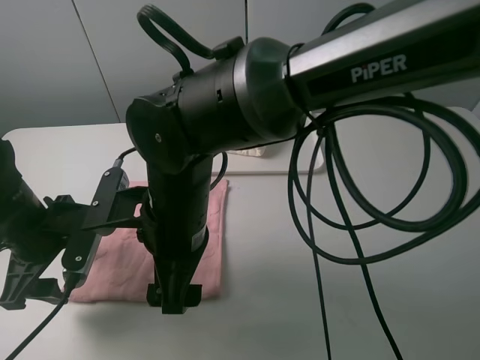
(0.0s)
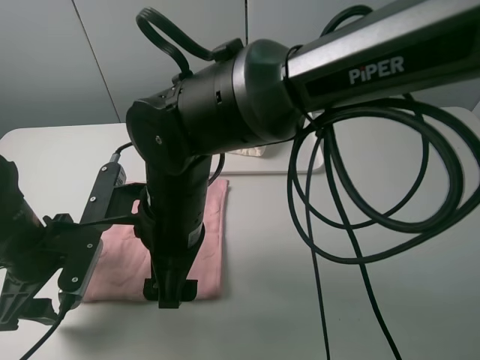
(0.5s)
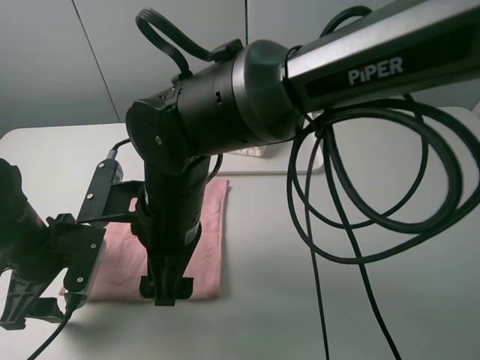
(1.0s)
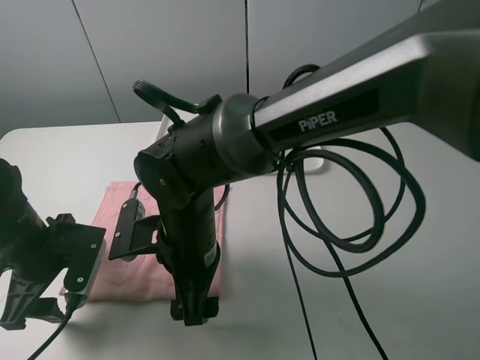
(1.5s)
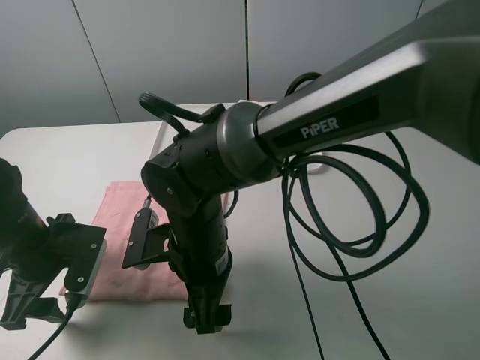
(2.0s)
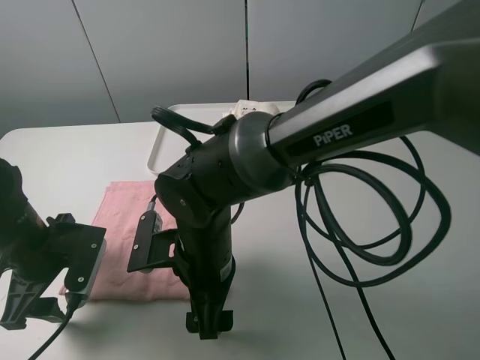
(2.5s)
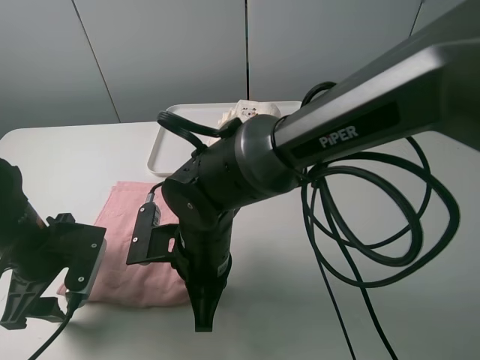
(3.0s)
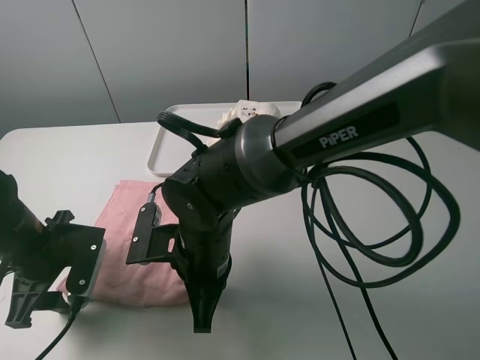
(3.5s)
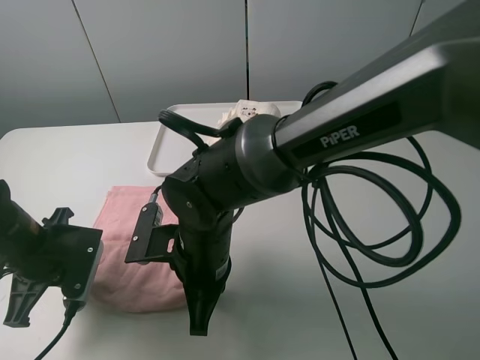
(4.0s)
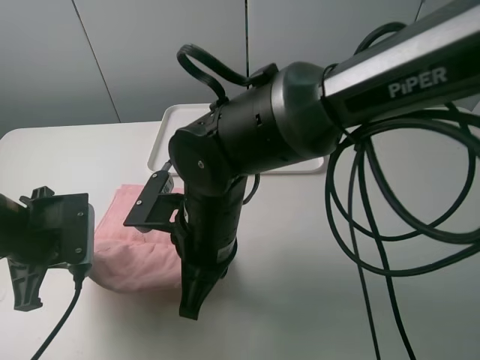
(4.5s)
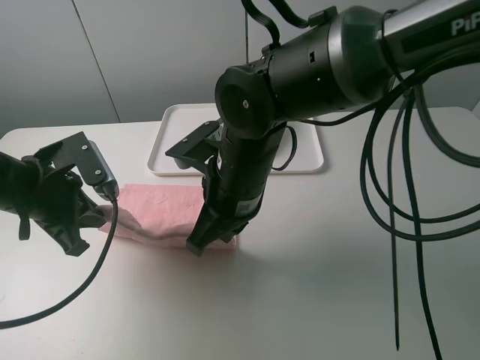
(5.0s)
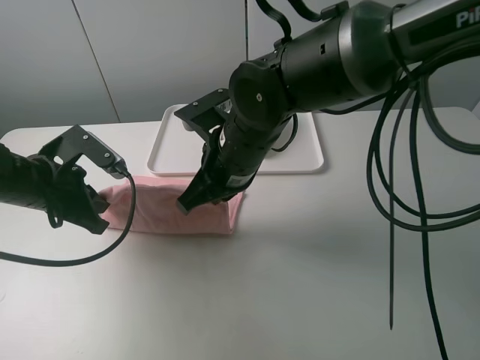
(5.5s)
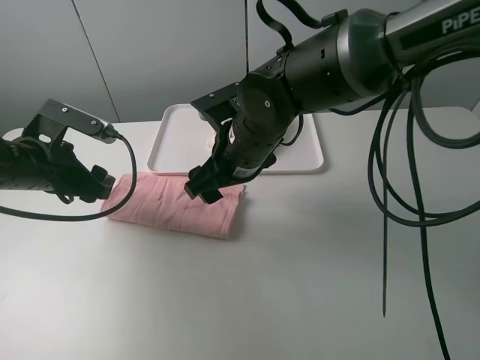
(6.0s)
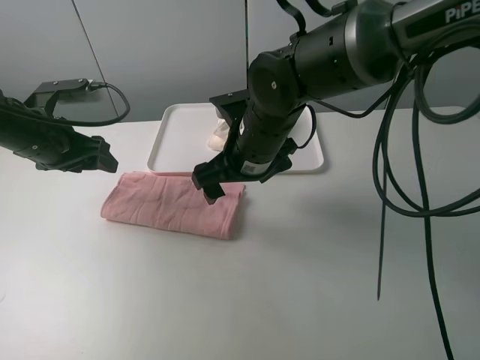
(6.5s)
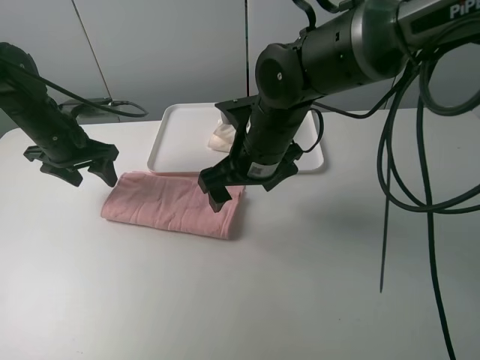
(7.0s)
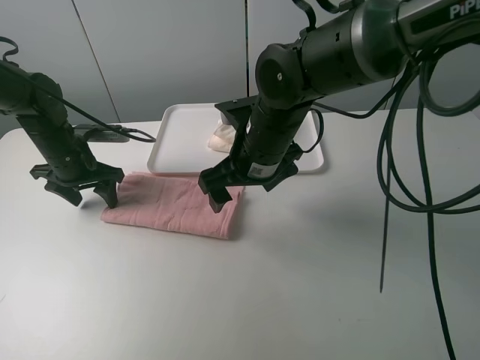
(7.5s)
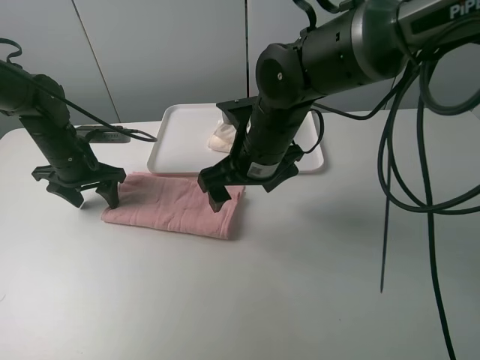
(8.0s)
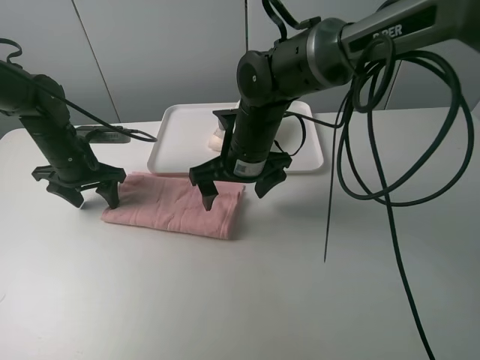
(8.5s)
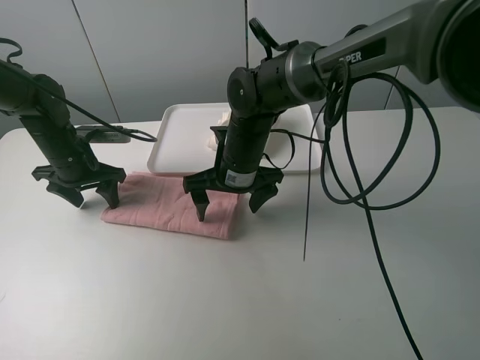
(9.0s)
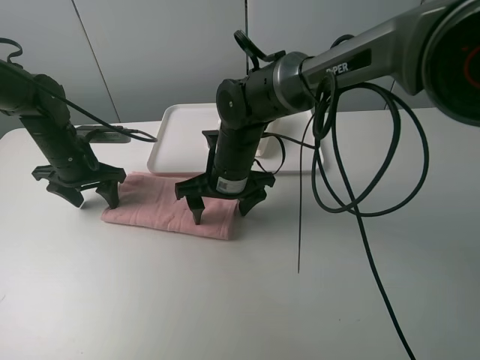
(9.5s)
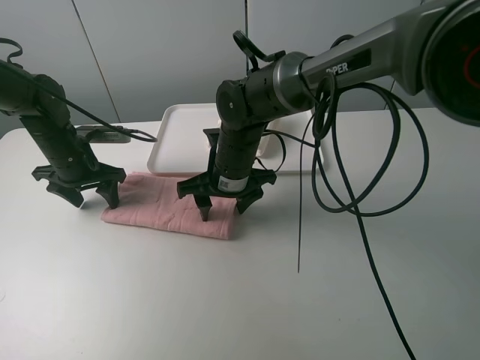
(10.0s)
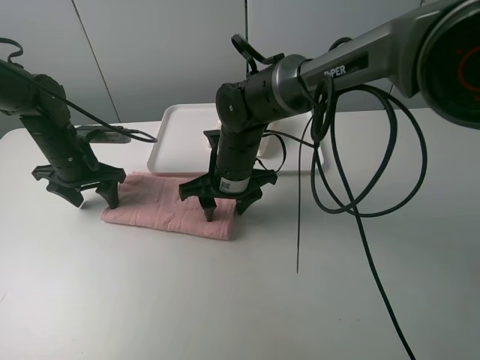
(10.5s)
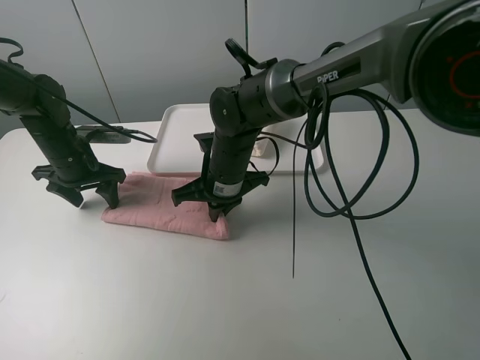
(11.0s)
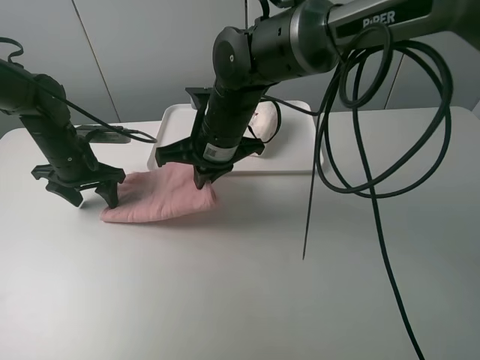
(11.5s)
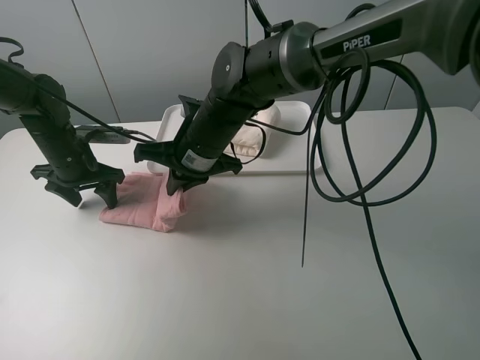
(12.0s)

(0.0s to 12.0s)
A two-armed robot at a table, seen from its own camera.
Task of the whole recording: fold one of the towels by two grippers and place it on the tray,then fold another towel by two grippers and place it on the folded towel.
Step, 0.0s - 3.5s: Grasp the pink towel with the left gripper.
Step, 4.0s - 6.0s: Fold the pink towel upwards with the left gripper.
Step, 6.5s - 7.5s: Press the pink towel with the left gripper.
Step, 8.0s - 11.0s: Grasp the pink towel with the right gripper.
0.0s - 2.0s: The right gripper is displaced downward by roughly 5 cm.
2.0s - 4.0s: The left gripper closes its fingers; the right gripper closes up.
4.0s - 6.0s: The left gripper goes roughly 10 cm forward and upward, and opens. The right gripper shifts roughly 15 cm forward, upward and to the right, and opens up.
6.0s - 8.0s: The left gripper shifts some 10 cm forward and downward.
8.0s - 10.0s: The right gripper travels downward by some 5 cm.
10.0s - 12.0s: The right gripper shifts approximately 5 cm upward, and closes up.

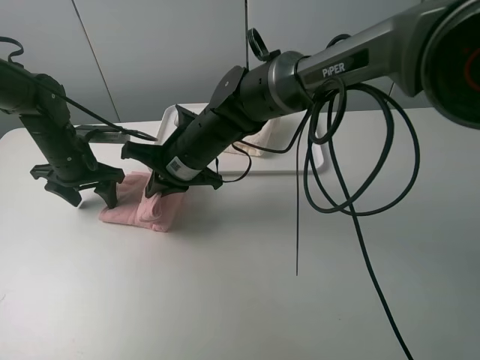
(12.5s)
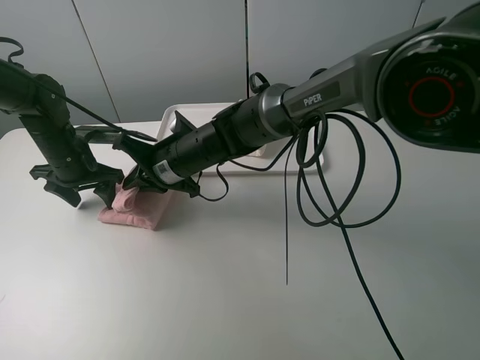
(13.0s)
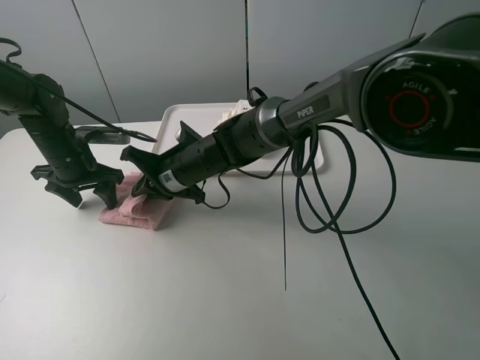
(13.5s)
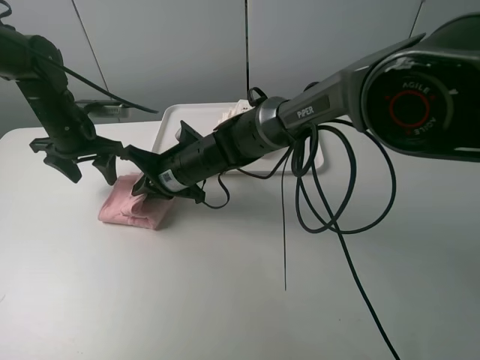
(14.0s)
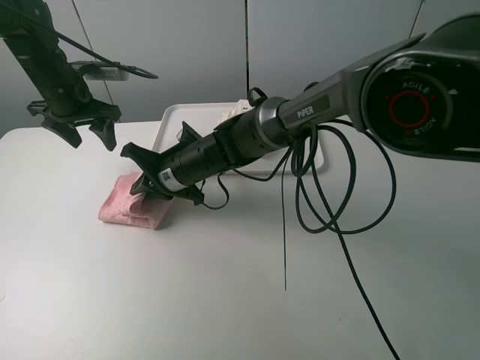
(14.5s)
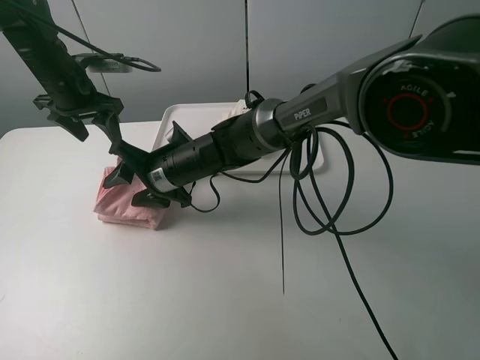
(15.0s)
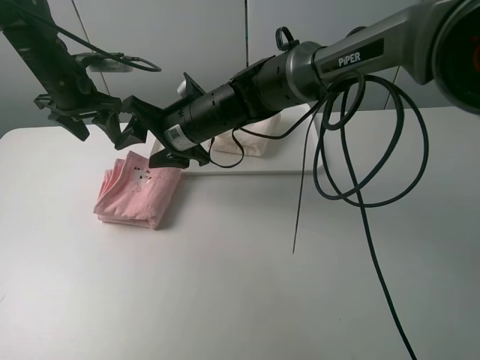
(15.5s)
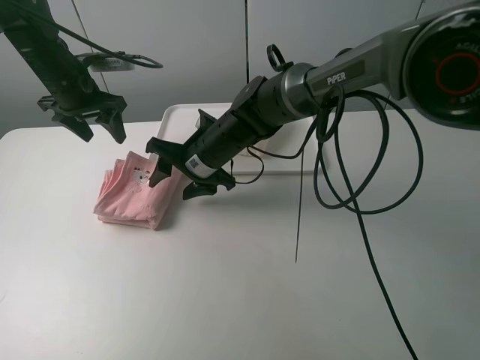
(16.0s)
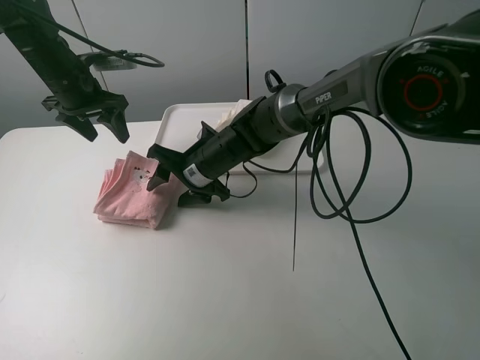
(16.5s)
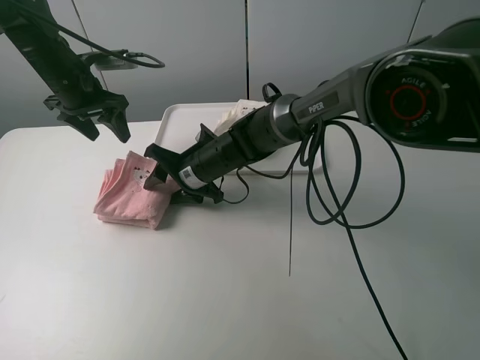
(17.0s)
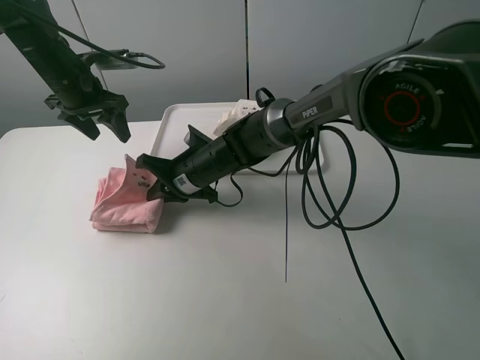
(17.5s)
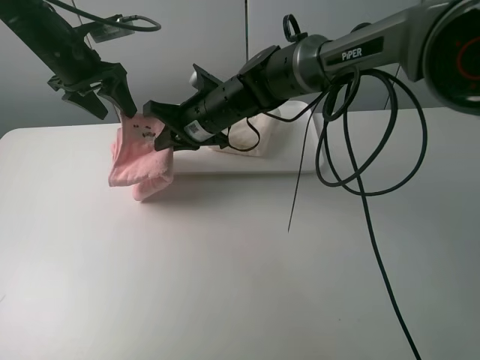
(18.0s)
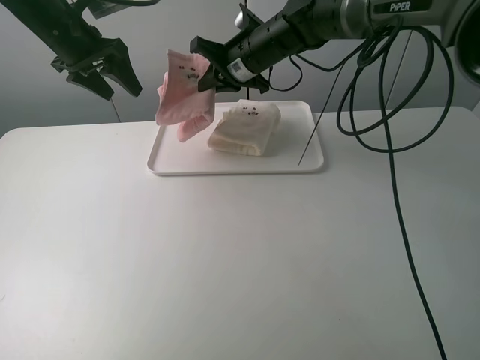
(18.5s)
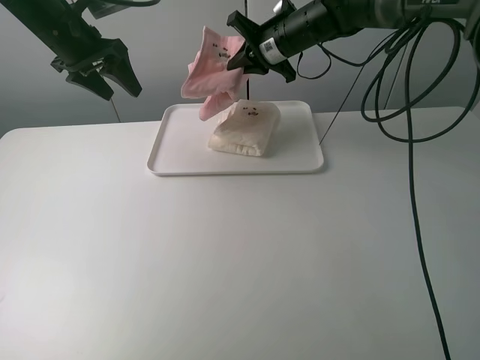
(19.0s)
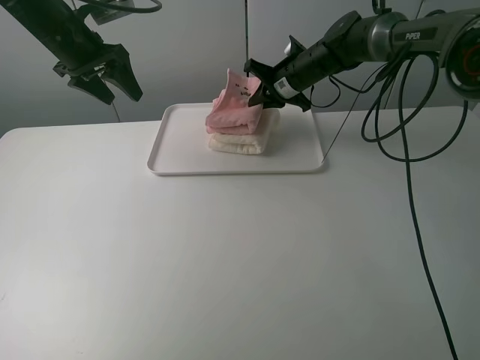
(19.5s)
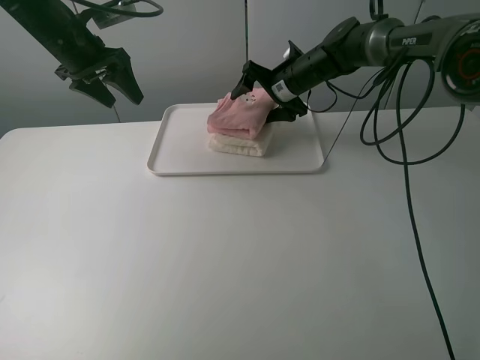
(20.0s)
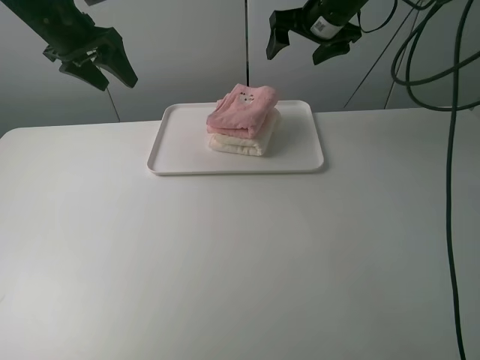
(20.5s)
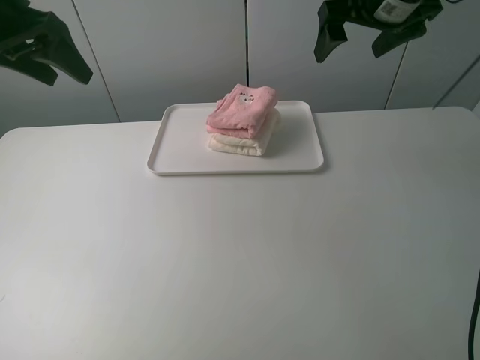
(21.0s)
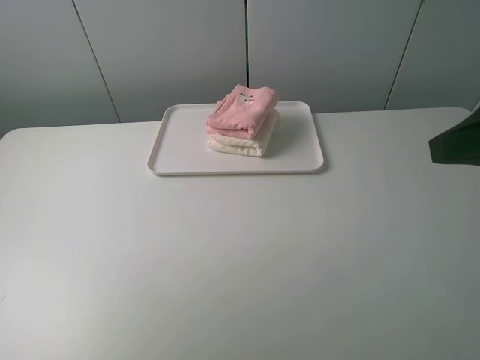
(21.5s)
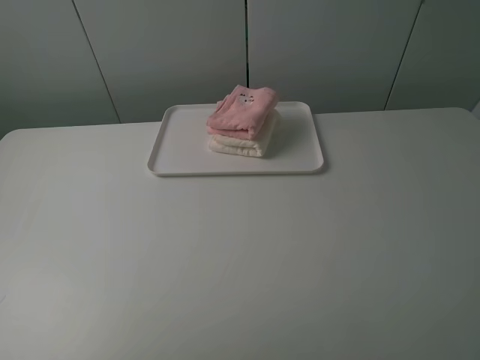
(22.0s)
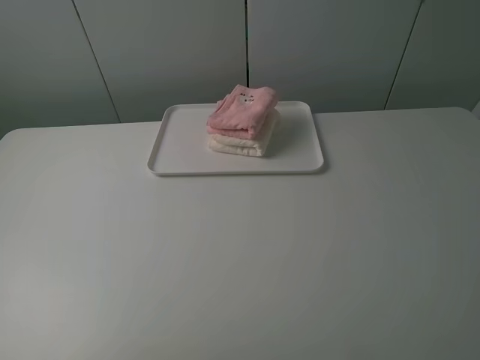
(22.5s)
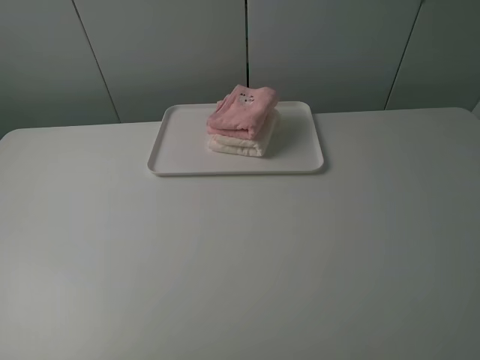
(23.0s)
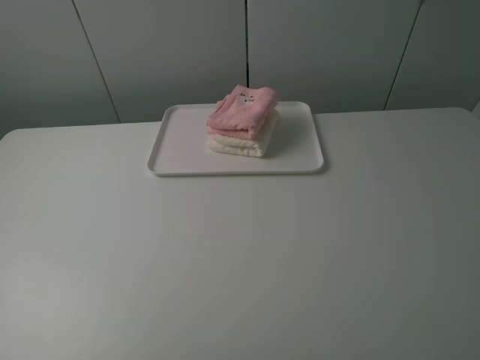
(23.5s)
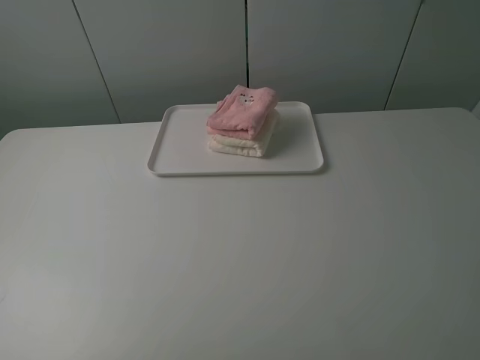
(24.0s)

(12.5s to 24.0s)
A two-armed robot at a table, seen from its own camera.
Task of the whole recording: fold one of the towels by two grippers and place it on the tray,then fold another towel by two grippers and place it on the folded towel.
Step, 12.5s - 15.0s: Fold the pink towel from right to left with right gripper.
Step, 15.5s - 20.0s: Place the pink towel on the white towel with the right gripper.
12.5s - 14.5s: The left gripper goes roughly 10 cm upward and forward.
14.5s - 16.5s: The right gripper goes upward and returns, about 5 cm each way, and opens up.
16.5s - 18.5s: The left gripper heads upward, covering about 5 cm; the right gripper shifts roughly 20 cm upward, forward and to the right, and closes its fingers.
18.5s - 20.0s: The right gripper heads to the right and downward, covering approximately 10 cm, and opens up.
20.0s - 22.0s: Both grippers travel together backward, approximately 40 cm.

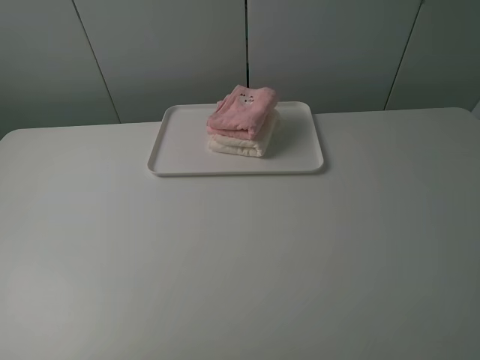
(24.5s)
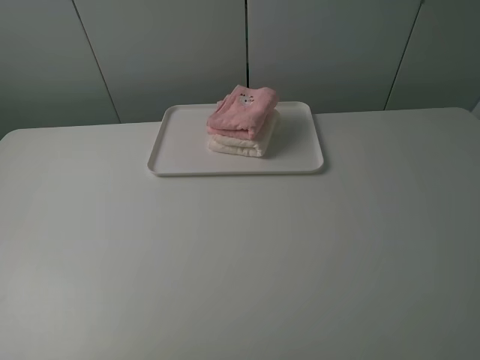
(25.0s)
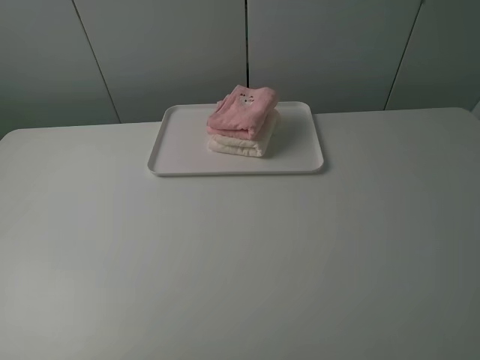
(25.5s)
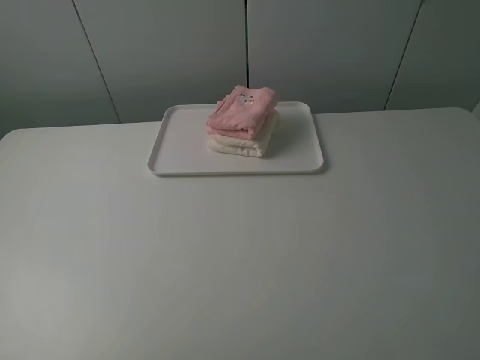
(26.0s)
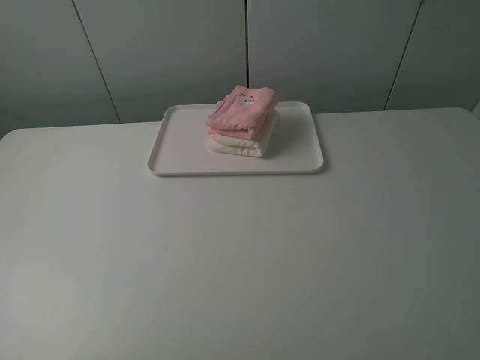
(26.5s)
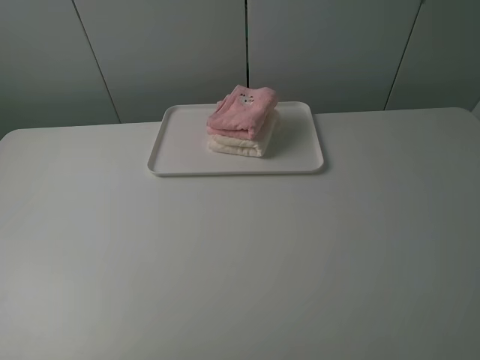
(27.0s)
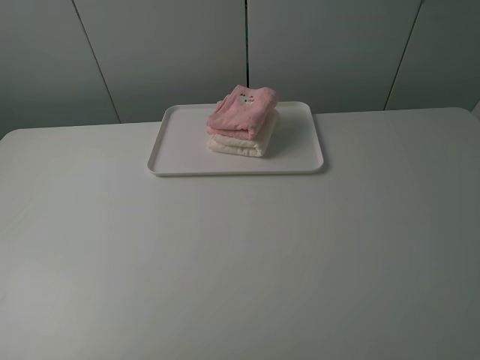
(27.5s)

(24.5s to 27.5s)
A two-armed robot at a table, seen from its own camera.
Task of the whole recording: fold one of the towels by two grippers and place it on the tray,then fold another towel by two grippers and place it on the folded towel.
24.5s - 27.5s: The two grippers keep their place.
